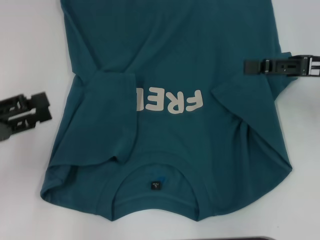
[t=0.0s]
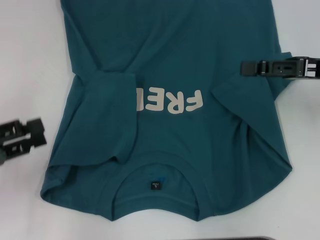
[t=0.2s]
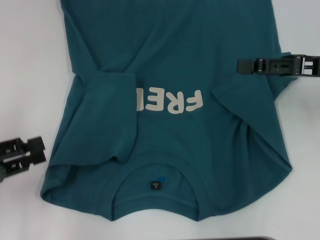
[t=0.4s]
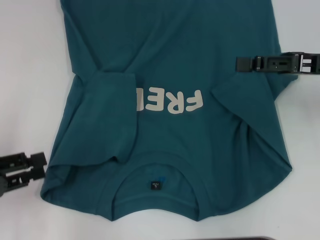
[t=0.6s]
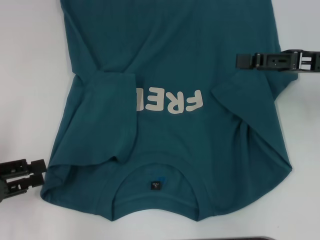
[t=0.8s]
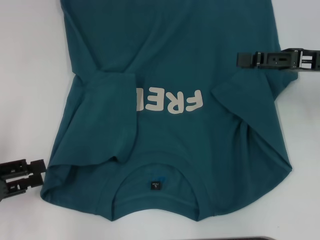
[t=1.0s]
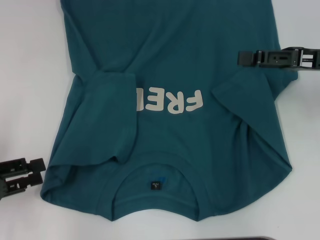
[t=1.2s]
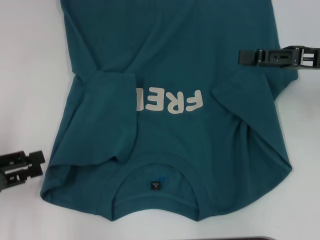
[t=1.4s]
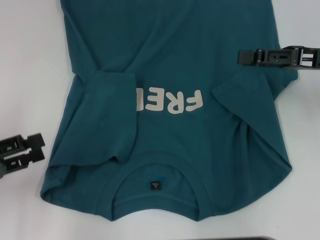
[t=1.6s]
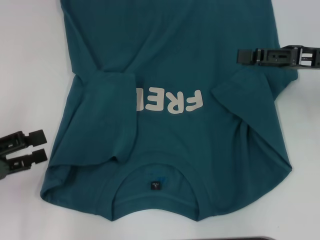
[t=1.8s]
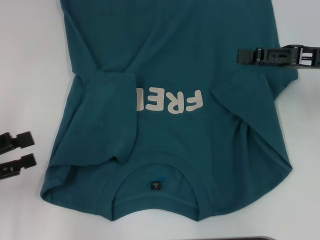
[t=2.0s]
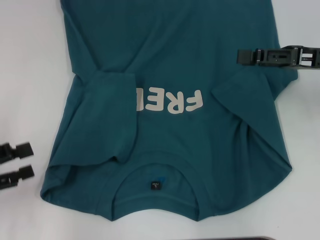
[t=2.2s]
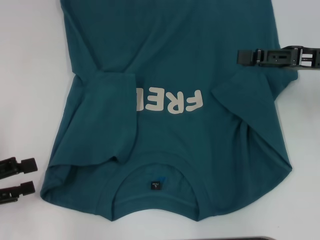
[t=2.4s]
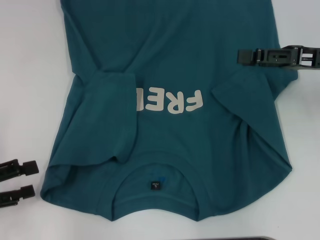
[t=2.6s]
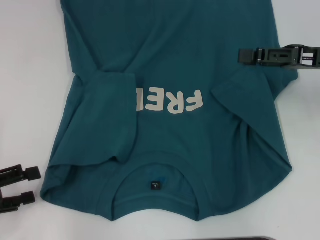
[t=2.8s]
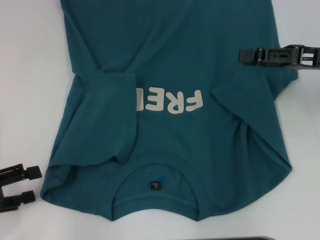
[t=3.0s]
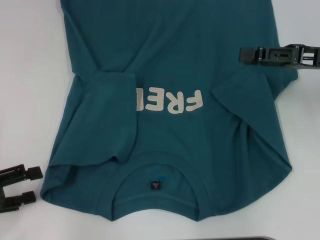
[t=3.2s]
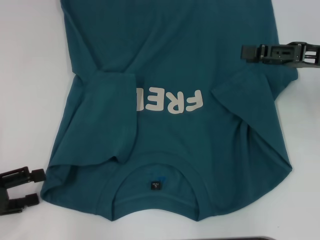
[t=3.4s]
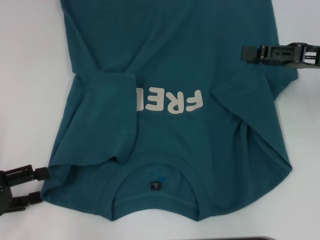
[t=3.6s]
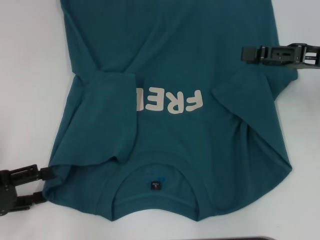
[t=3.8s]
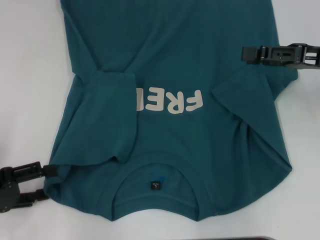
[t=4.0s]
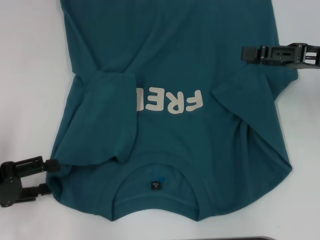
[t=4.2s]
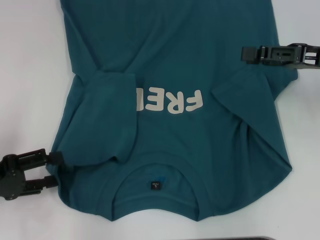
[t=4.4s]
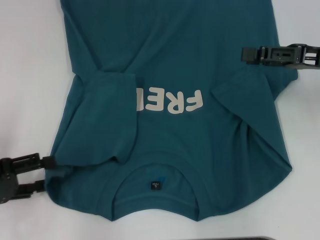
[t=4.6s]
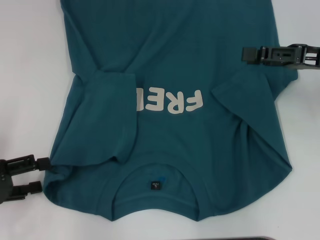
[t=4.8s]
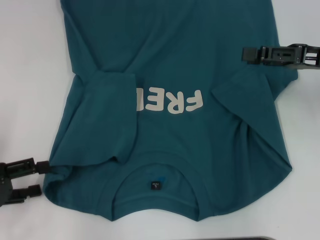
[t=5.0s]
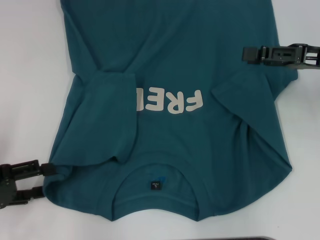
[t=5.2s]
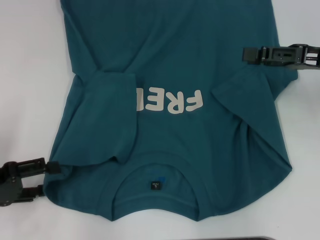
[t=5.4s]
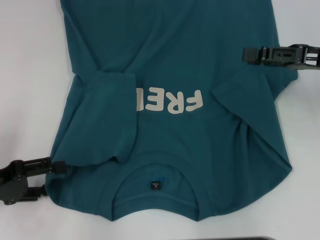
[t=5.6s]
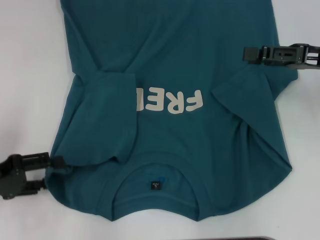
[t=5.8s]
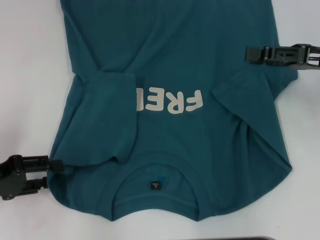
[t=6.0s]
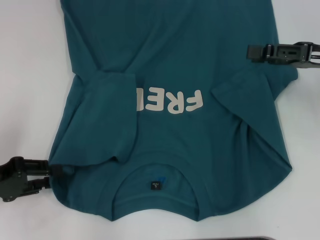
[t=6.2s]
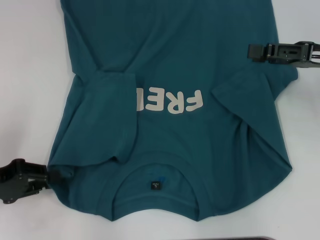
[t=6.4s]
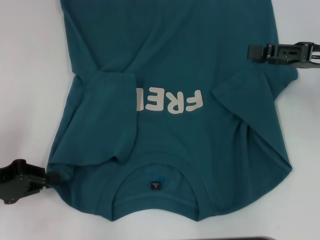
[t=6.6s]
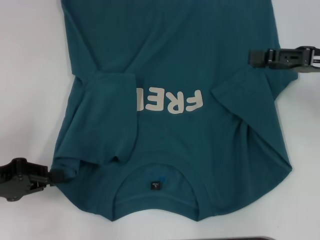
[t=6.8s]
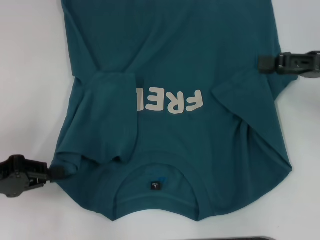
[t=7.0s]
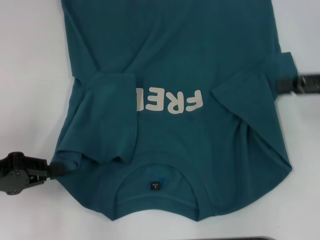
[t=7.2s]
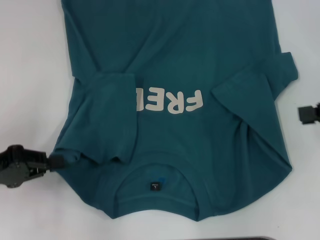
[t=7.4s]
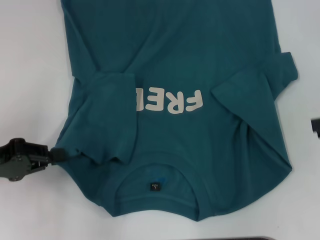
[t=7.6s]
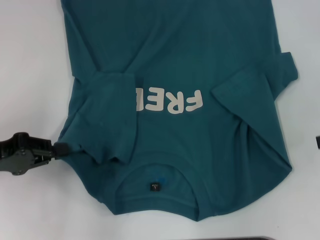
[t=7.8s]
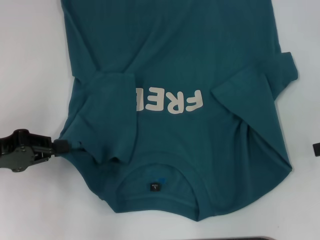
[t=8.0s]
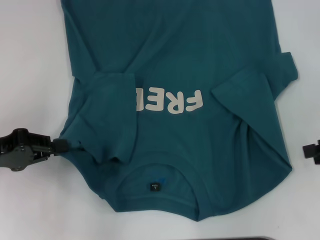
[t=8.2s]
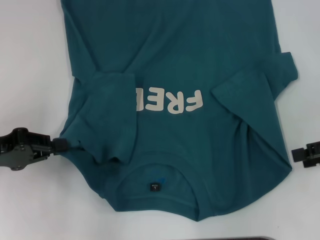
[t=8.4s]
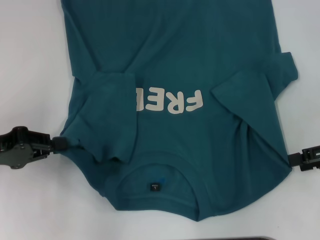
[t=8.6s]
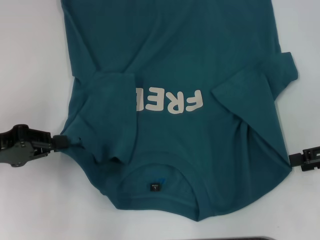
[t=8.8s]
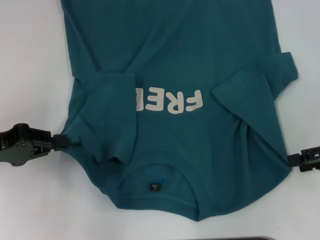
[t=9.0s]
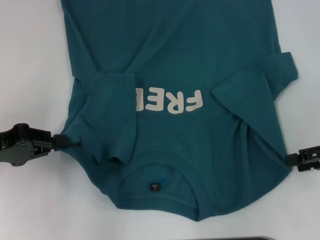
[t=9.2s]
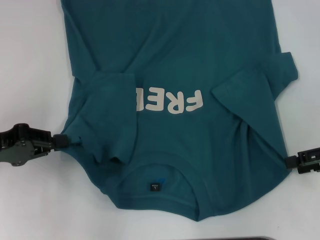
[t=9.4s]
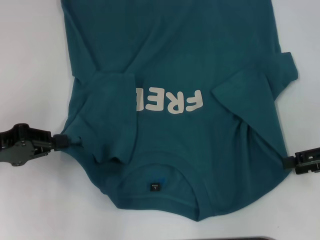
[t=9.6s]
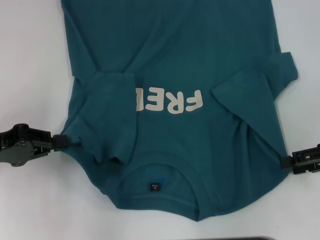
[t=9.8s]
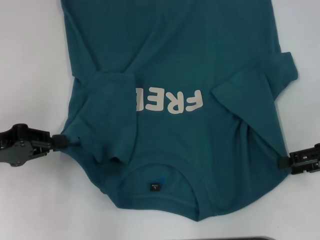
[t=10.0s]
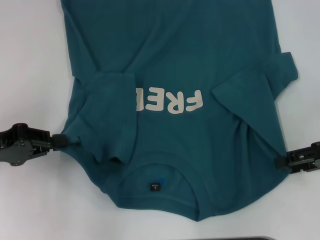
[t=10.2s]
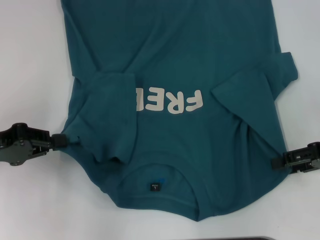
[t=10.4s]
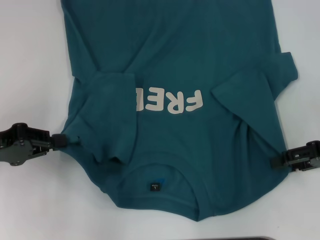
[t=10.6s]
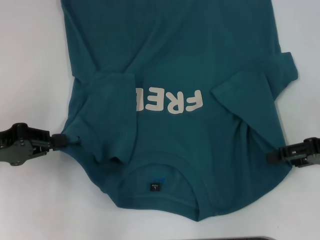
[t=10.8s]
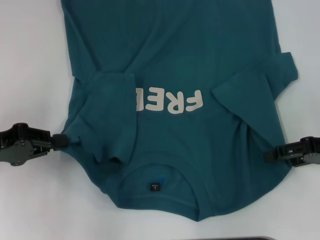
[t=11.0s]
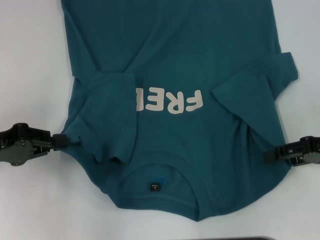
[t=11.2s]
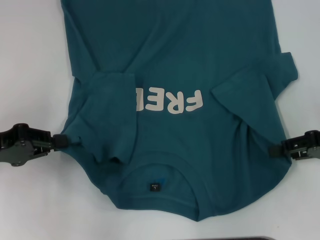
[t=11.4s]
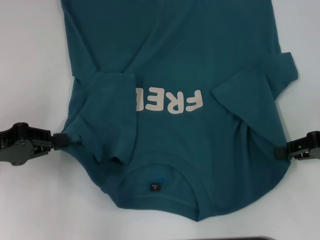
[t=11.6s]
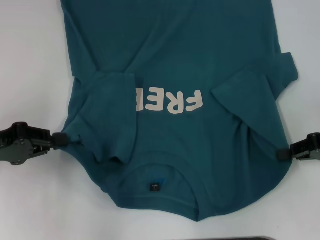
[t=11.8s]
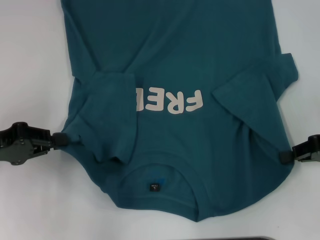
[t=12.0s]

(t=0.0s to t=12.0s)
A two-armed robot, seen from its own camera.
Step, t=0.0s - t=7.0s: Grab the bottom left corner with your left hand.
Step, t=7.2s - t=12.0s: Grab the bottom right corner with your right hand.
t=1.6s - t=3.0s: The grippers move only a little.
t=3.0s - t=6.0s: There are only small adjustments of the grippers.
t=6.0s - t=7.6s: The right gripper goes about 10 cm to the right. The left gripper closes up.
t=7.6s - t=9.0s: The right gripper changes place by some 5 cm.
t=9.0s - t=10.4s: The grippers stay close to where they were, moving slightly.
t=10.4s - t=12.0s: The right gripper closes up.

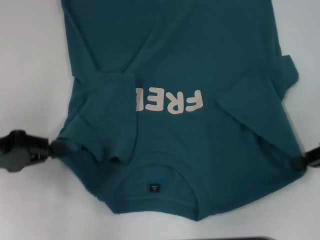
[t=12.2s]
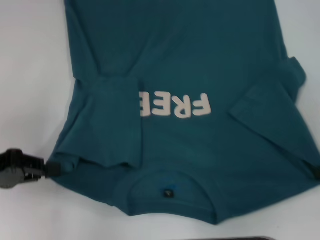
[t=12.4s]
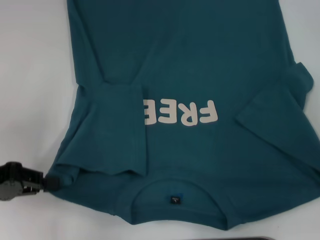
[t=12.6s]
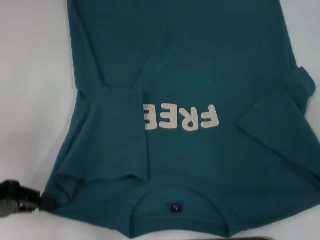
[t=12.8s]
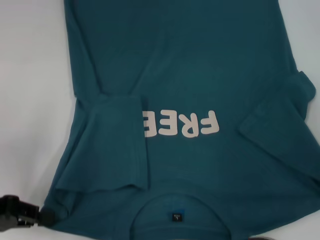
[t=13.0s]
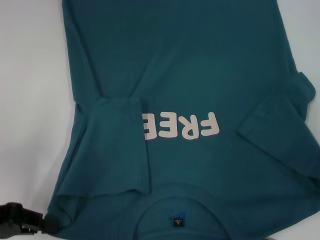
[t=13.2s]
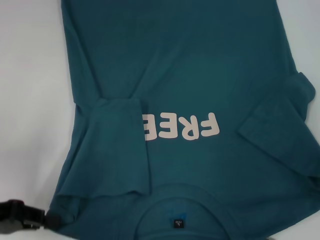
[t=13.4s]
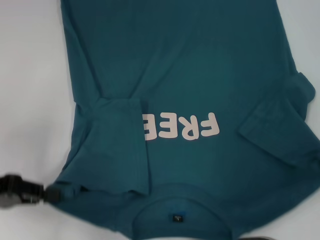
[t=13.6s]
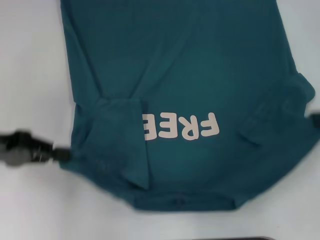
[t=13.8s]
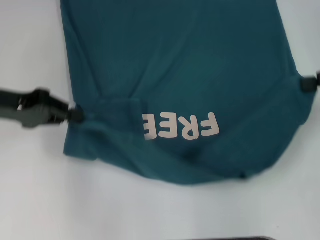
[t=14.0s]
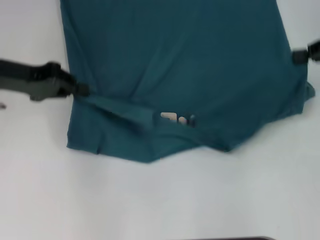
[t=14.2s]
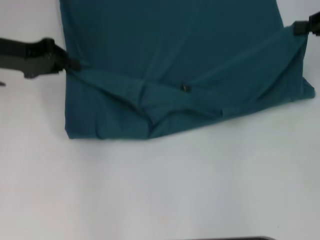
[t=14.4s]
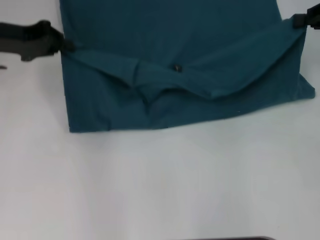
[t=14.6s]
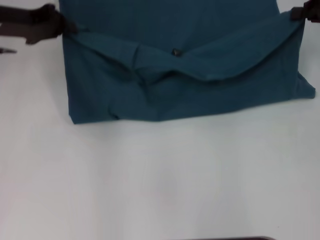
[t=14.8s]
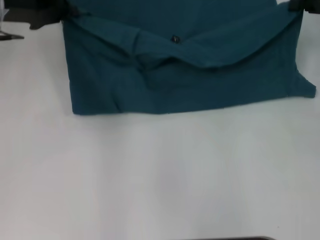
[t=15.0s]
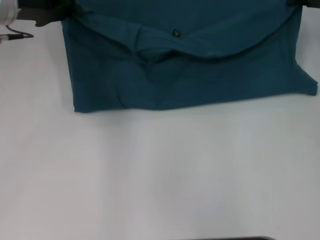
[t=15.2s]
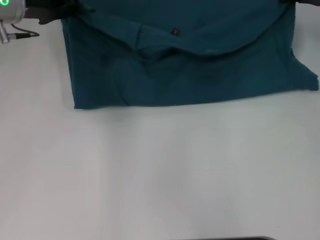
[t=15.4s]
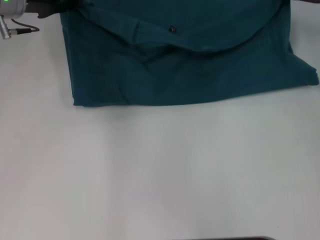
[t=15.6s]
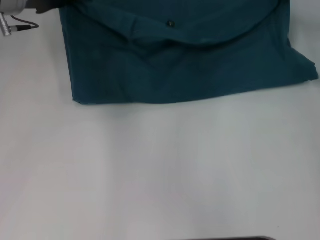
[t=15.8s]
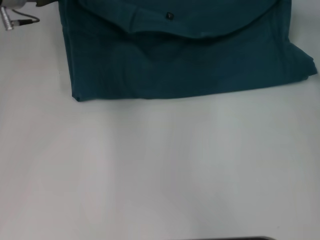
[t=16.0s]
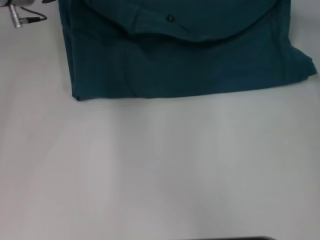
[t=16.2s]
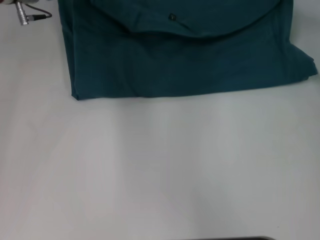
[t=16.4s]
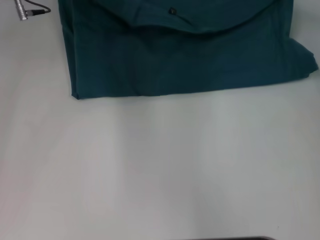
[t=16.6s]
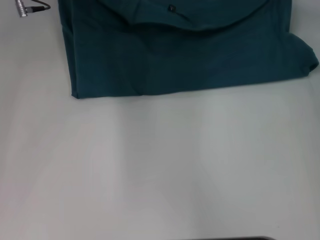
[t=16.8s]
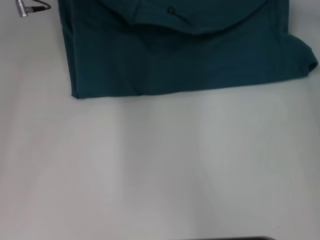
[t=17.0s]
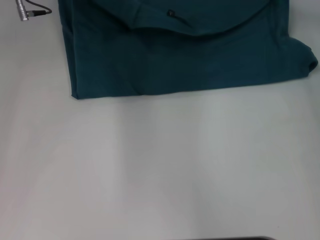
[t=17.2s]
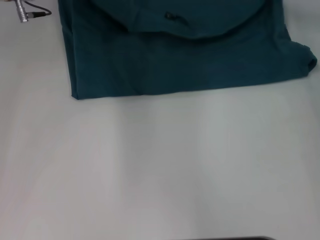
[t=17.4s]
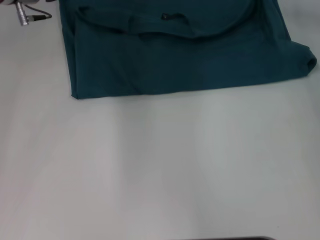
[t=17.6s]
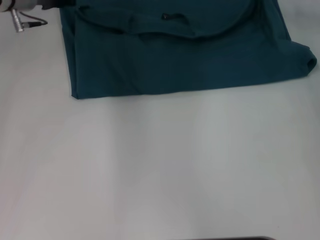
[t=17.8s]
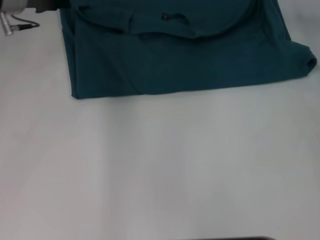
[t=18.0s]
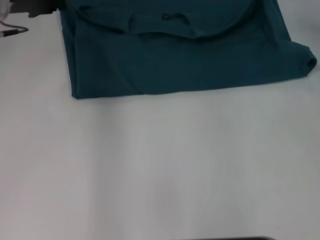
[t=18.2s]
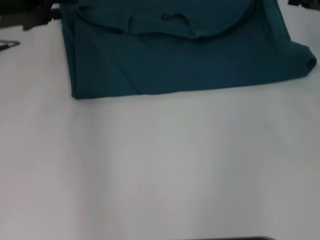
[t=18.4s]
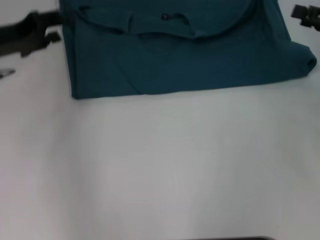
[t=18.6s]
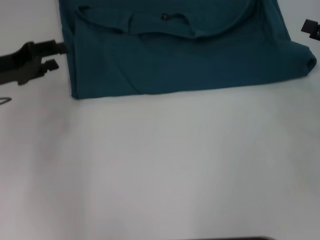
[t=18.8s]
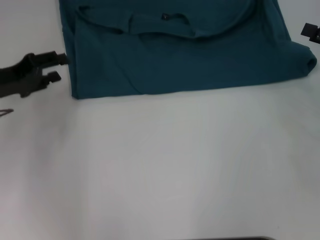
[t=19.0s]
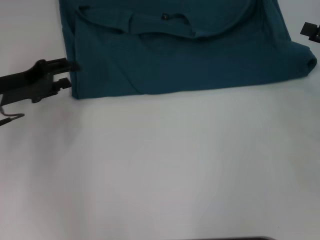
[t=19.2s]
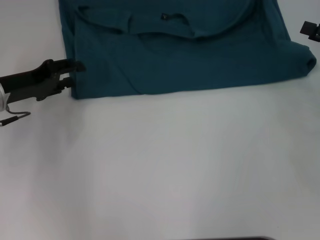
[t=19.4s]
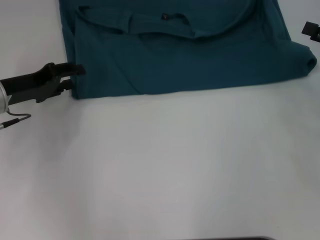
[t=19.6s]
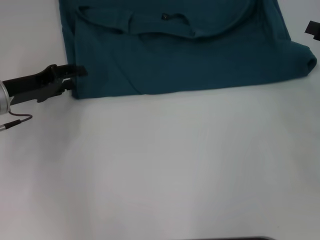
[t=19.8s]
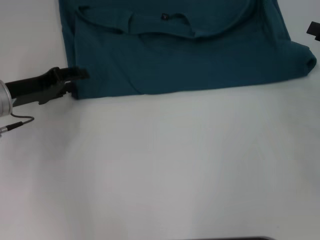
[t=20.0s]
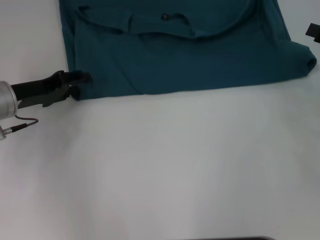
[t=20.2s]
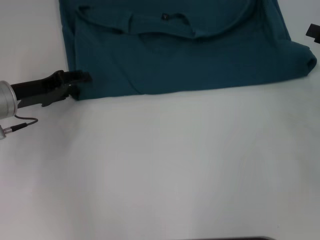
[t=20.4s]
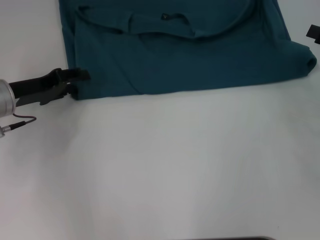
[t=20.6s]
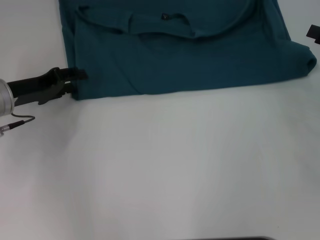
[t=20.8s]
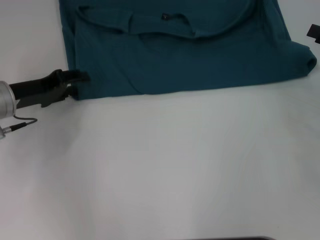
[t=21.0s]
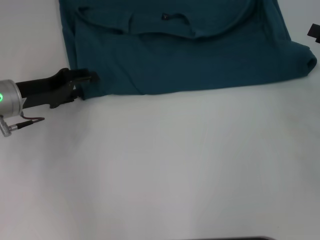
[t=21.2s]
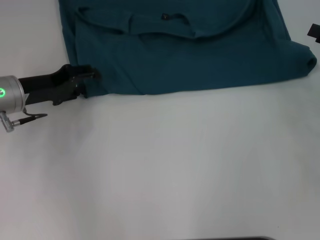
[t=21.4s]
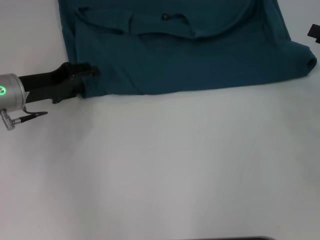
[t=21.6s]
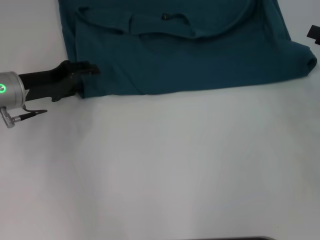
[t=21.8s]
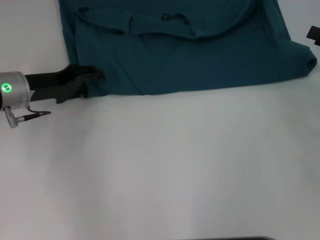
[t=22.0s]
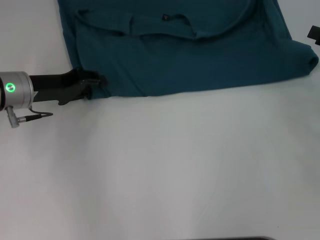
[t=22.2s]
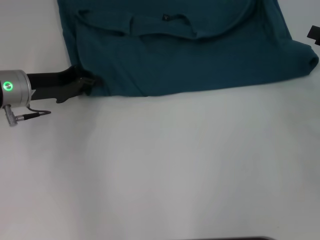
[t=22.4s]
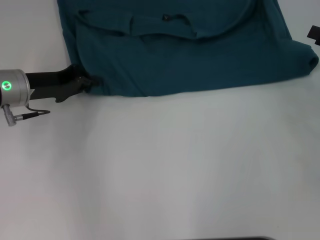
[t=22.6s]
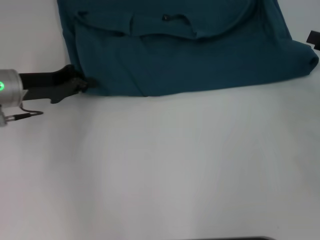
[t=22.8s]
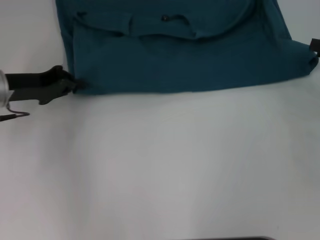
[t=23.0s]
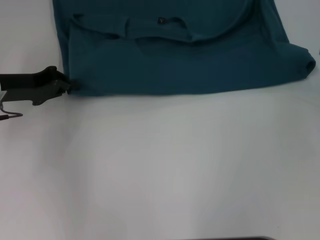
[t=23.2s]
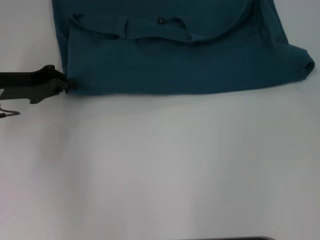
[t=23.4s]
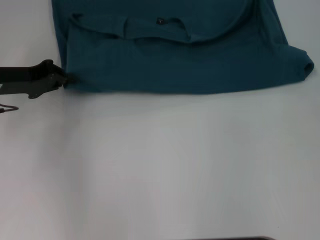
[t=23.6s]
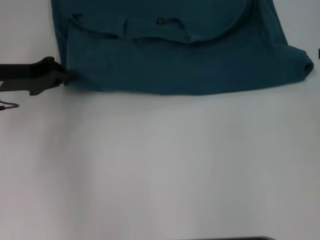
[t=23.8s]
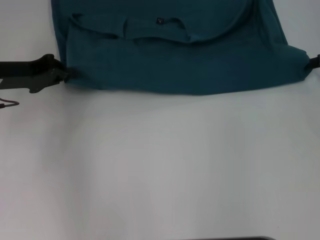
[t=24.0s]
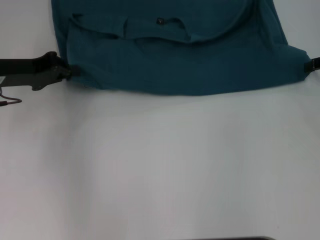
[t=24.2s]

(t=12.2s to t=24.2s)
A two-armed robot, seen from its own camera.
Step, t=12.2s - t=17.8s: Fold the clothes to the left.
Step, t=12.2s - t=17.8s: Fold the clothes to the right.
t=12.2s - t=13.8s: The right gripper is displaced upward by about 5 cm.
t=13.8s - t=15.2s: The right gripper travels forward by approximately 10 cm. The left gripper travels forward and to the right by about 20 cm.
t=15.2s - t=16.6s: The right gripper changes place by roughly 5 cm; the left gripper changes place by some 5 cm.
t=16.6s - t=18.2s: The left gripper moves about 5 cm, and opens up, while the right gripper opens its fingers.
t=18.2s - t=19.8s: The left gripper moves downward and backward, some 15 cm, while the right gripper is displaced backward, to the right and downward by approximately 15 cm.
t=19.8s - t=21.2s: The grippers move only a little.
t=21.2s - t=22.6s: The left gripper closes up.
t=22.6s - t=24.2s: The right gripper moves forward, approximately 5 cm.
